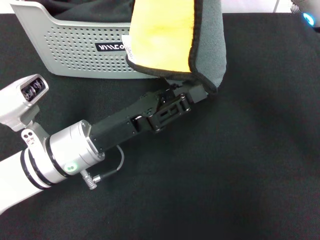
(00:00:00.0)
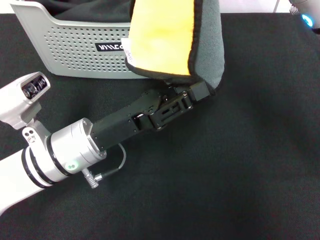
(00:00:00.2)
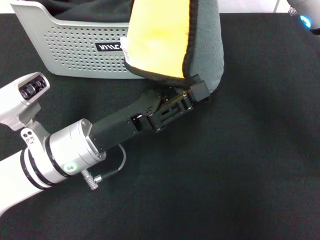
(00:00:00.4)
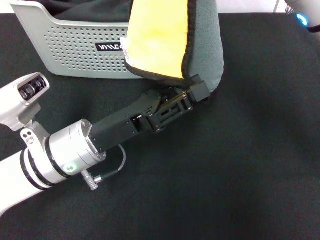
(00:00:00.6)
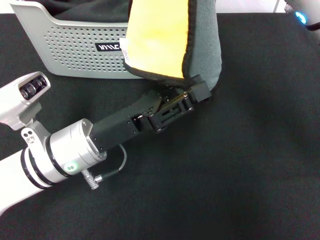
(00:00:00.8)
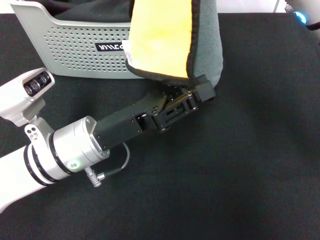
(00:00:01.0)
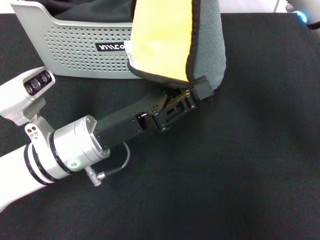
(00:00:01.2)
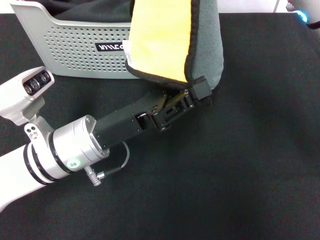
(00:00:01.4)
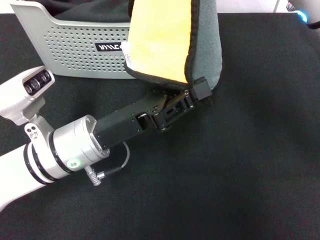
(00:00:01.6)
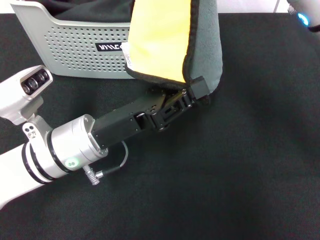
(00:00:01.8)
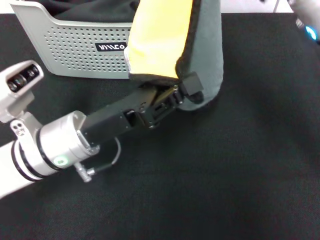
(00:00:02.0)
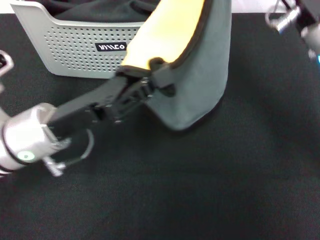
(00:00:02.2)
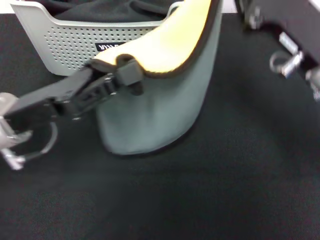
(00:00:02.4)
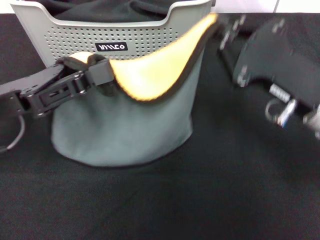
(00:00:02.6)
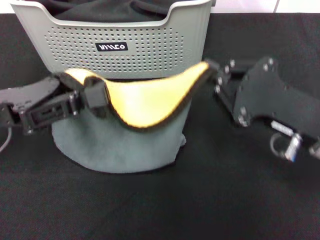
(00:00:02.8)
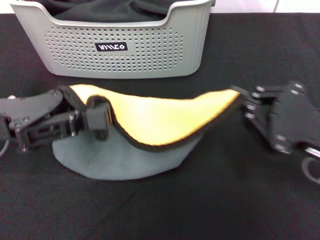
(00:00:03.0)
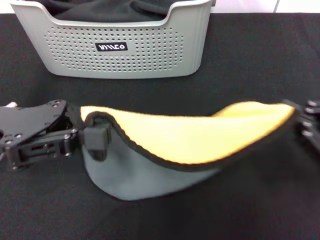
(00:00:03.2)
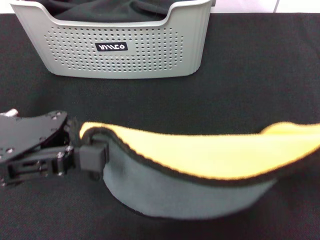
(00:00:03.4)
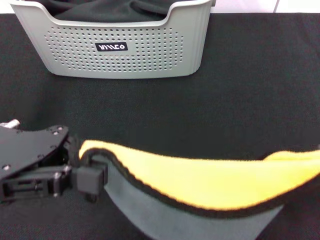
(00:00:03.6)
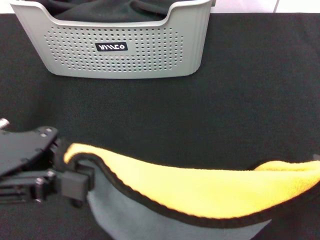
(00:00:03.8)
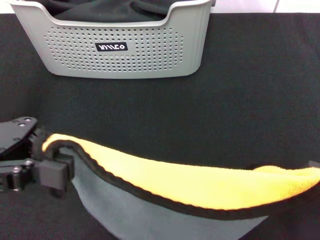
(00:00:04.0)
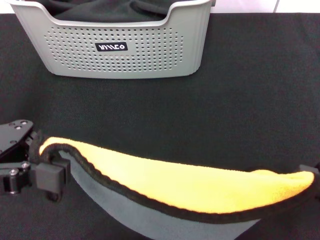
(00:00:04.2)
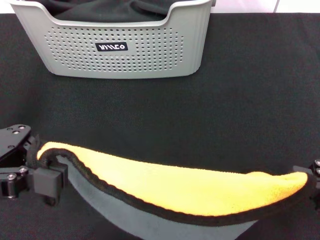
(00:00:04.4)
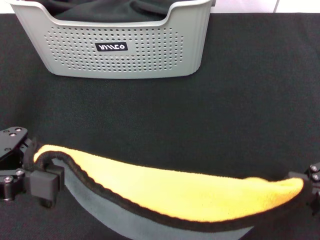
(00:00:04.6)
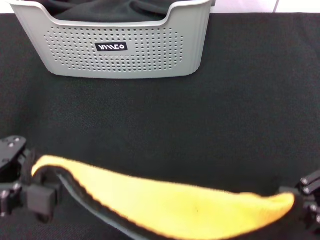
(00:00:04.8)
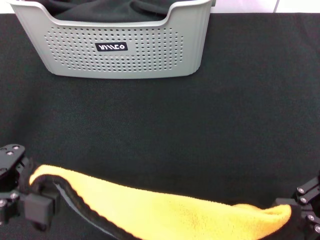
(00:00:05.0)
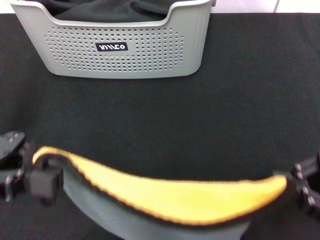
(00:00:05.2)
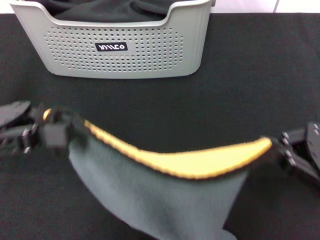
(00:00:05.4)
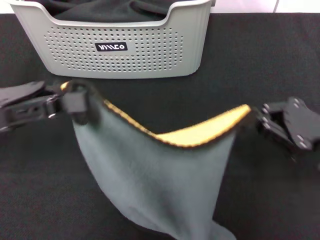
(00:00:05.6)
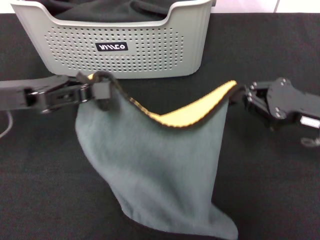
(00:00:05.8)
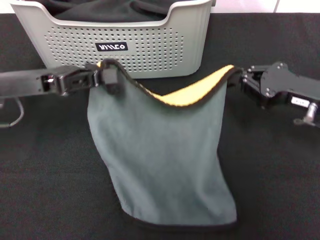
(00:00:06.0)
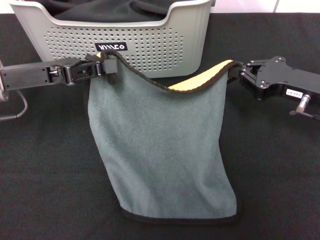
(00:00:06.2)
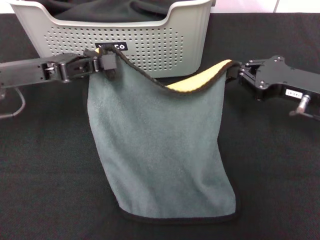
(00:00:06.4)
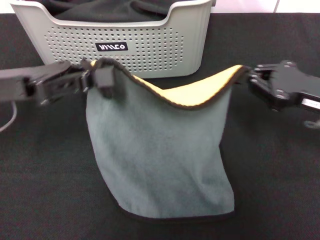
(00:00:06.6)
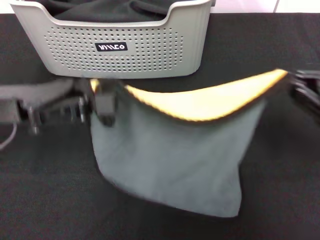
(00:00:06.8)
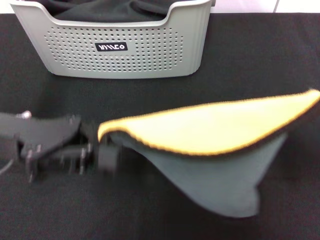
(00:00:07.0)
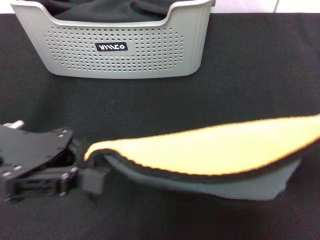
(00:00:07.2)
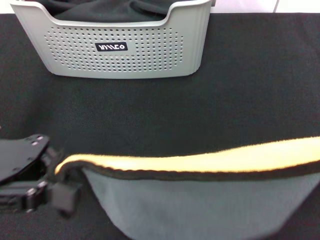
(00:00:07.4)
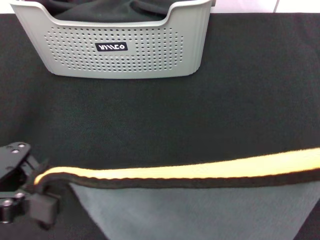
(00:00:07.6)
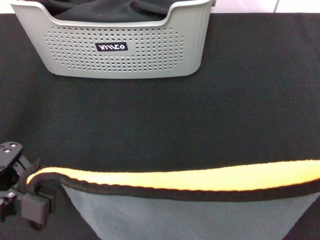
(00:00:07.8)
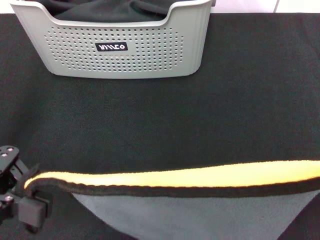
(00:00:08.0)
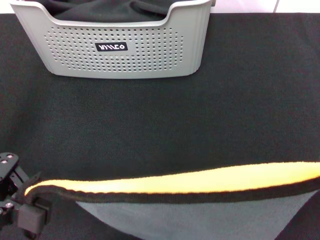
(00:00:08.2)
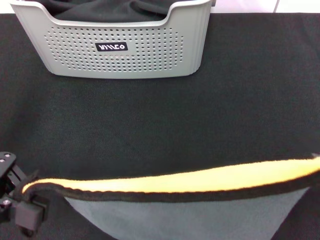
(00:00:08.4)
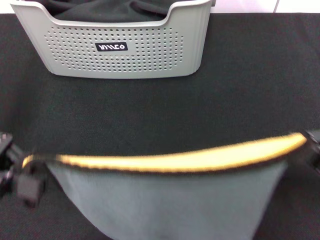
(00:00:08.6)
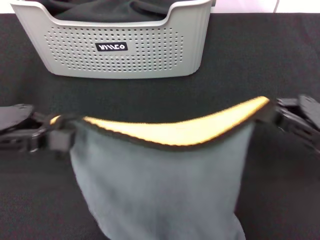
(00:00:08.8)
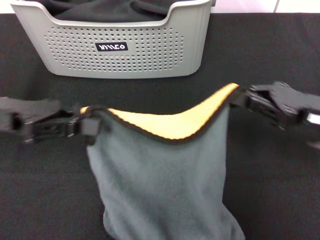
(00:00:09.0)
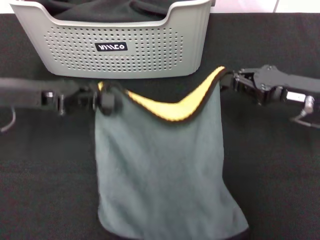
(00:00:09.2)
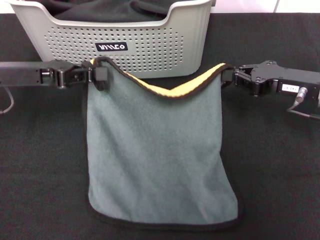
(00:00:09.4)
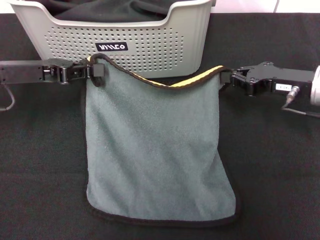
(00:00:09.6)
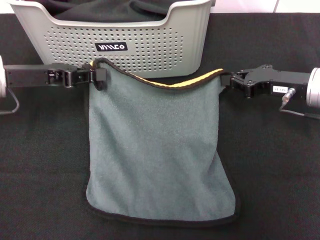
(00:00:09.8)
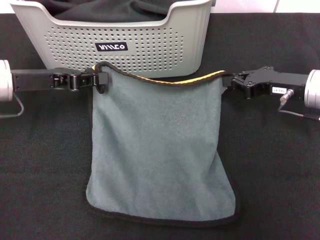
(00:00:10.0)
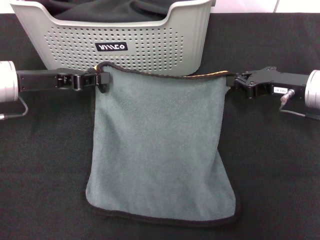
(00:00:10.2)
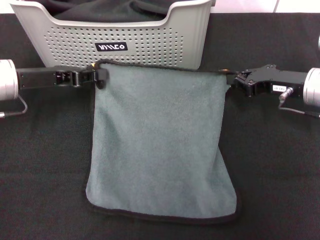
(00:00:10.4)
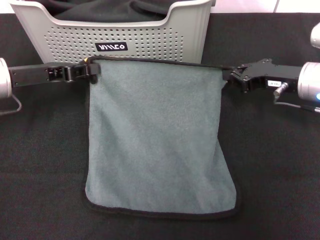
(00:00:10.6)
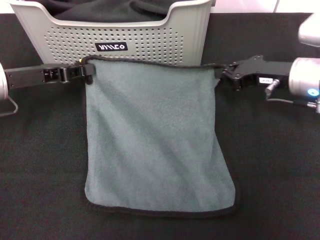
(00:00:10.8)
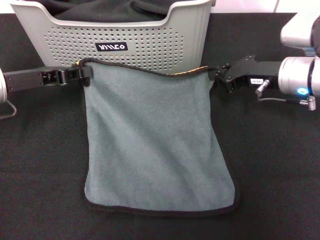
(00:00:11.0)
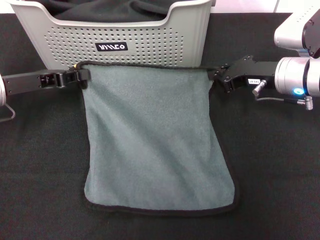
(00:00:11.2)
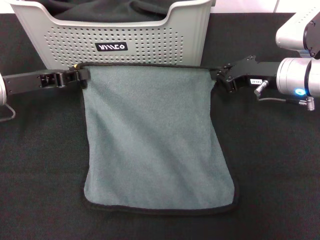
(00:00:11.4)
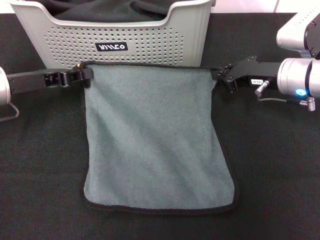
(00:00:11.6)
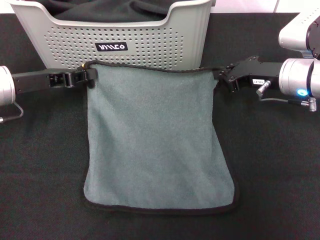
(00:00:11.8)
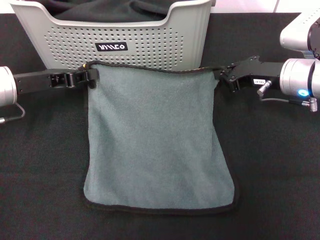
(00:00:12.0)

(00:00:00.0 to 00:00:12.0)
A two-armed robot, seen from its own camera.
Task of the whole recording: pick up the towel from the storage box and lay it flat on the black tablecloth.
00:00:00.0 - 00:00:01.6: The two grippers keep their place.
00:00:01.6 - 00:00:03.0: The right gripper is displaced downward, to the right and backward by roughly 20 cm, while the left gripper moves to the left and upward, approximately 15 cm.
00:00:03.0 - 00:00:04.4: The right gripper heads to the right, covering about 5 cm.
00:00:04.4 - 00:00:06.0: The left gripper shifts about 10 cm forward and downward; the right gripper travels forward by roughly 15 cm.
00:00:06.0 - 00:00:07.6: The left gripper heads backward, covering approximately 10 cm. Meanwhile the right gripper is displaced backward and to the right by roughly 15 cm.
00:00:07.6 - 00:00:09.0: The right gripper moves forward and to the left, some 10 cm. Meanwhile the left gripper shifts roughly 5 cm forward.
00:00:09.0 - 00:00:10.4: The two grippers go approximately 5 cm forward.
00:00:10.4 - 00:00:12.0: The grippers stay close to where they were, moving slightly.

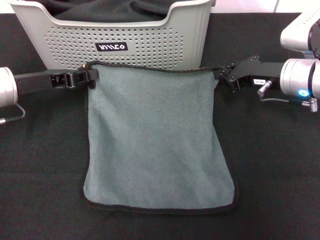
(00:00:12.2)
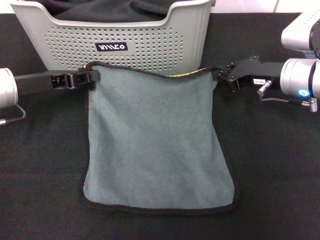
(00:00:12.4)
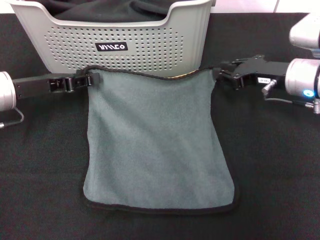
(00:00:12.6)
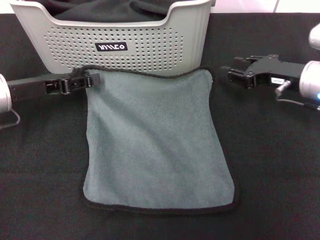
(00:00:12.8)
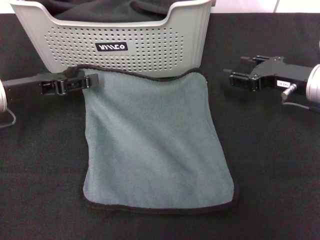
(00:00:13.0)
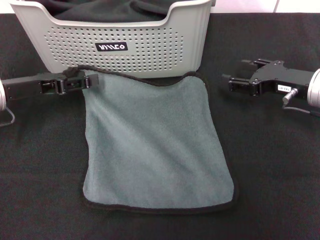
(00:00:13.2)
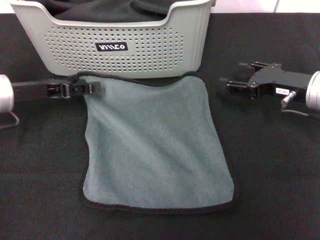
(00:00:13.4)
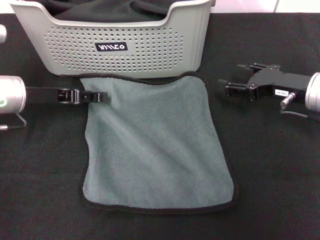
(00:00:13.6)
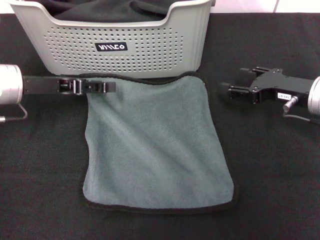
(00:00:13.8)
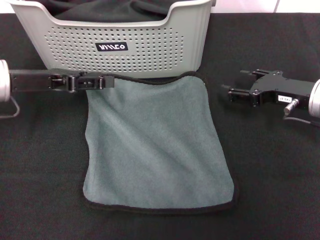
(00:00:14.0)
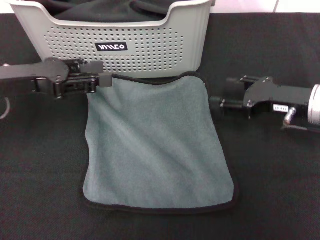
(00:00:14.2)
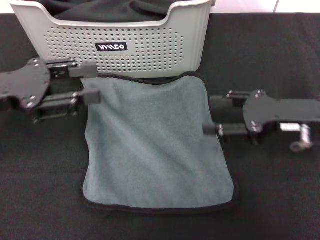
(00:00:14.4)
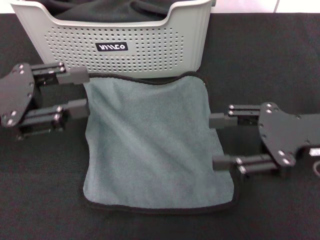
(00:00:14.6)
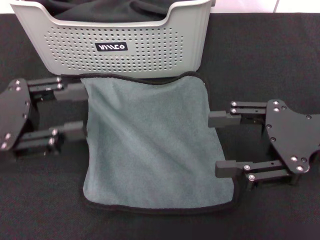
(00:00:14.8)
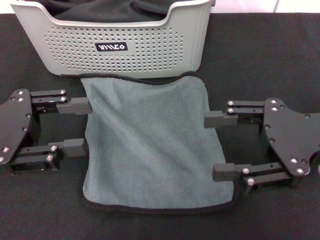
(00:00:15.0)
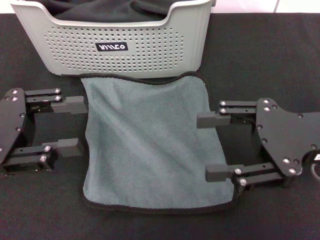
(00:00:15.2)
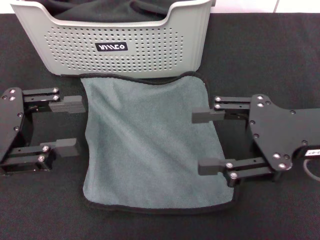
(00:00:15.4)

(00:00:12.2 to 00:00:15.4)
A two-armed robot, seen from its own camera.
Task of the whole recording: pick up the towel from the storage box and lay it flat on the black tablecloth.
00:00:12.2 - 00:00:13.8: The left gripper opens up; the right gripper shifts by some 5 cm, and opens its fingers.
00:00:13.8 - 00:00:15.4: The left gripper shifts approximately 10 cm backward. The right gripper heads backward and upward, covering approximately 10 cm.
